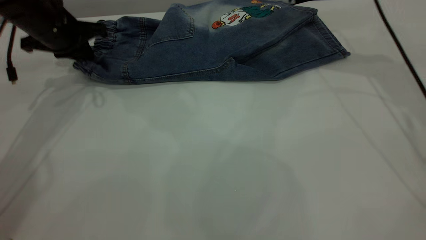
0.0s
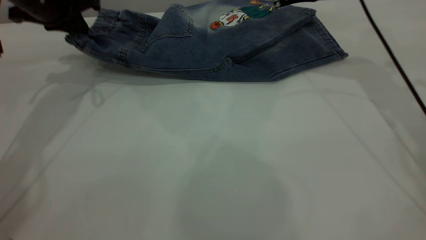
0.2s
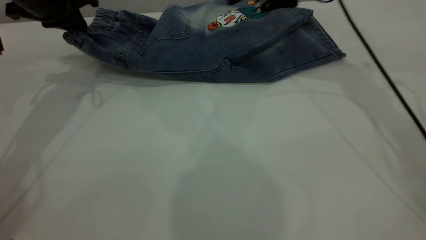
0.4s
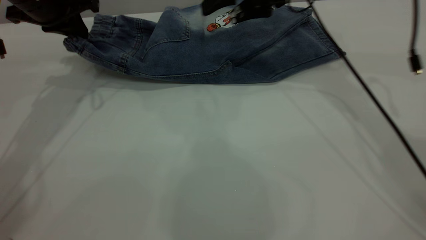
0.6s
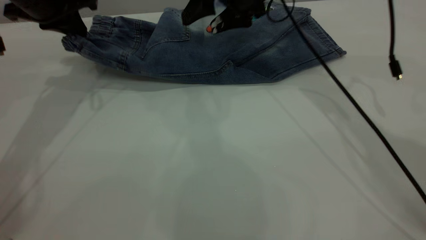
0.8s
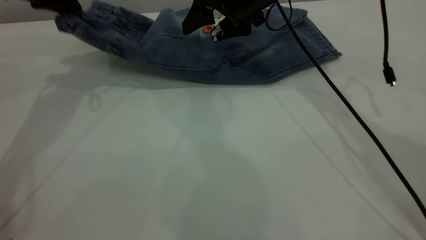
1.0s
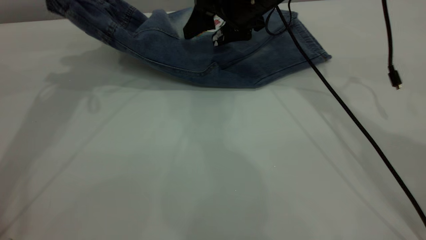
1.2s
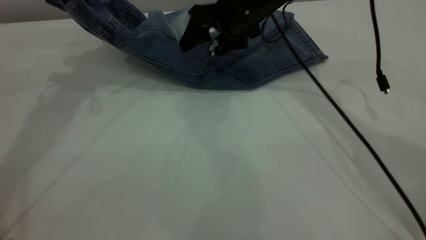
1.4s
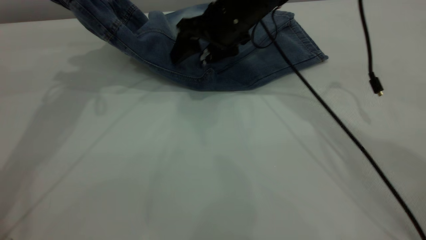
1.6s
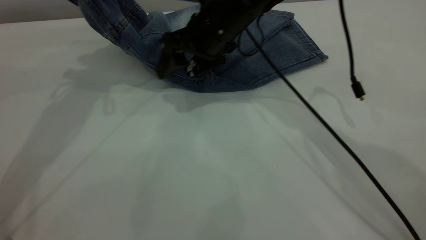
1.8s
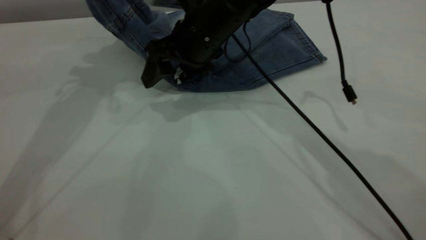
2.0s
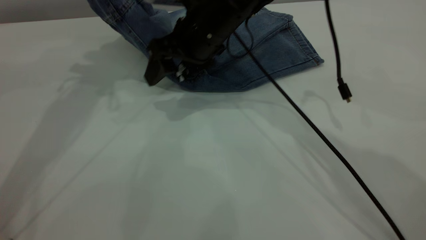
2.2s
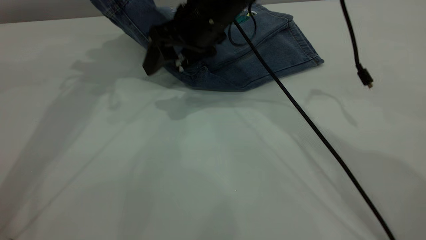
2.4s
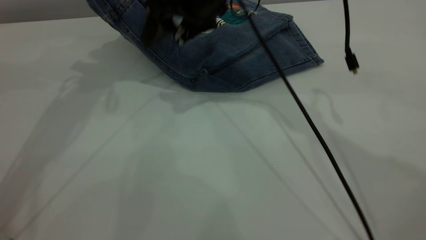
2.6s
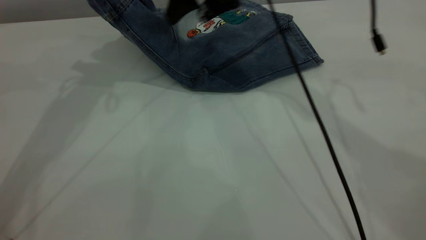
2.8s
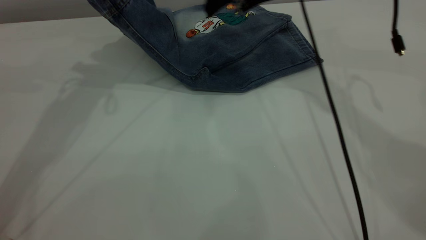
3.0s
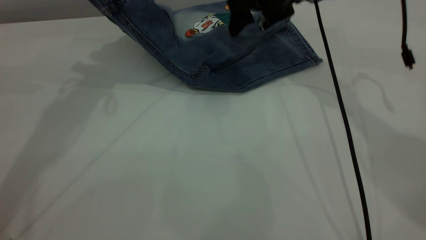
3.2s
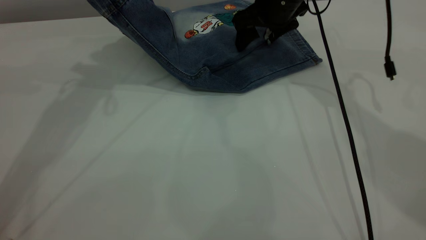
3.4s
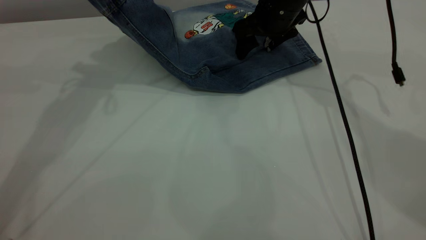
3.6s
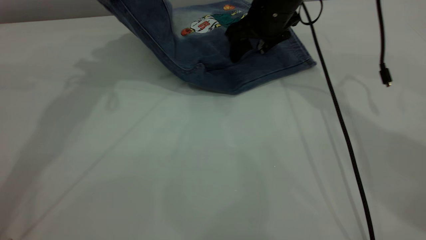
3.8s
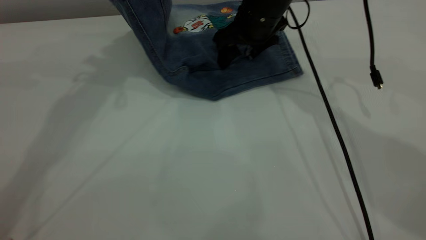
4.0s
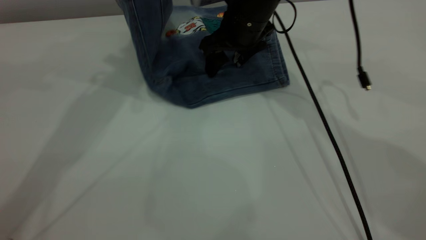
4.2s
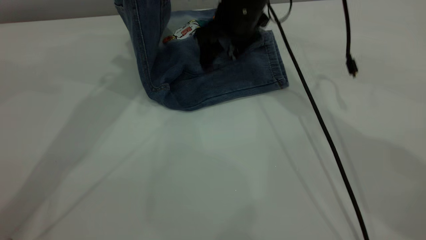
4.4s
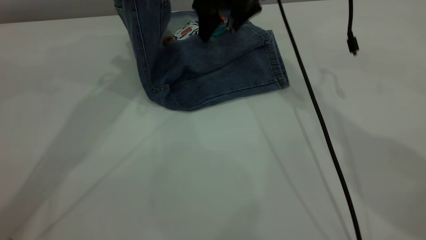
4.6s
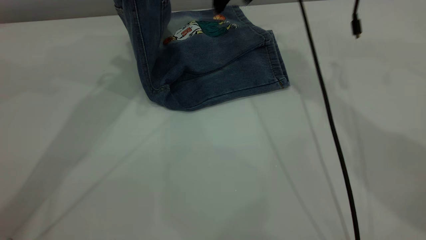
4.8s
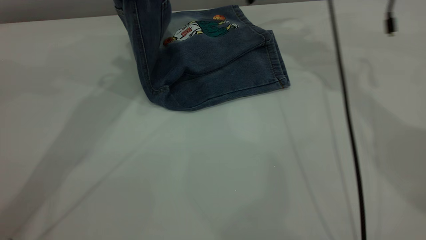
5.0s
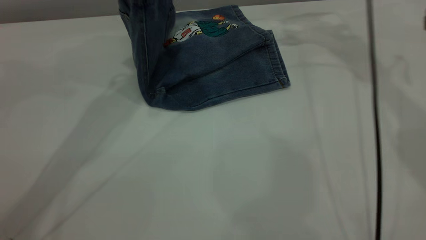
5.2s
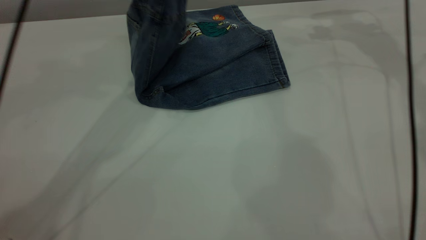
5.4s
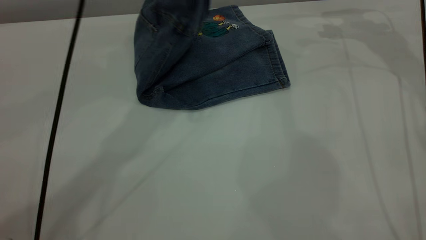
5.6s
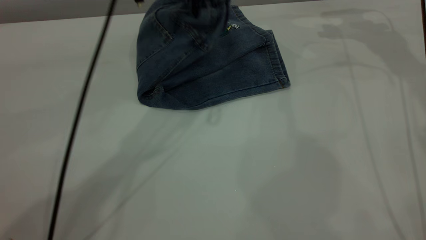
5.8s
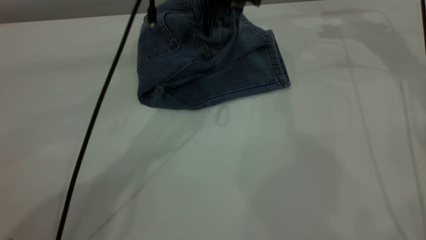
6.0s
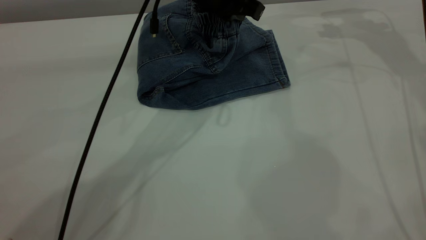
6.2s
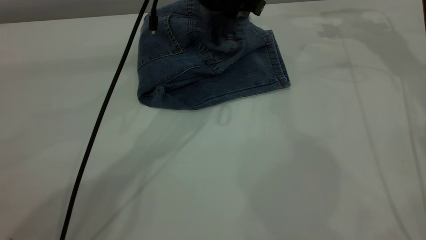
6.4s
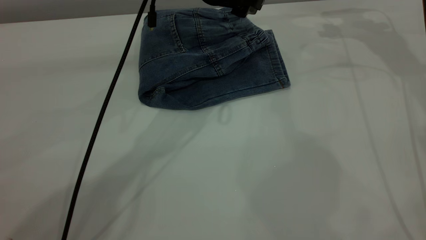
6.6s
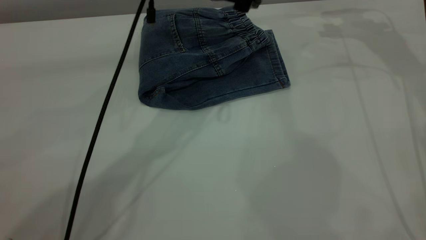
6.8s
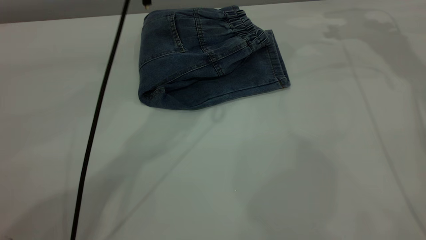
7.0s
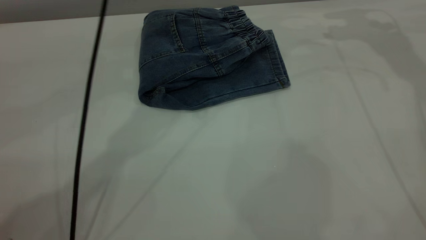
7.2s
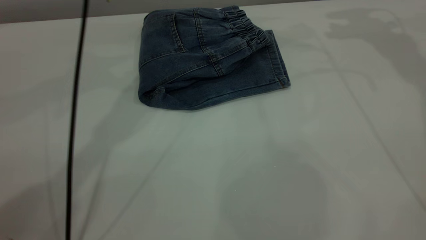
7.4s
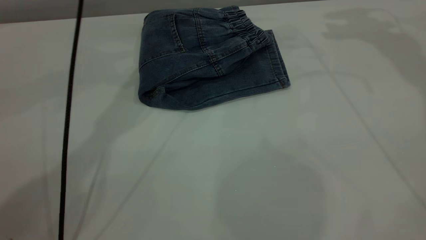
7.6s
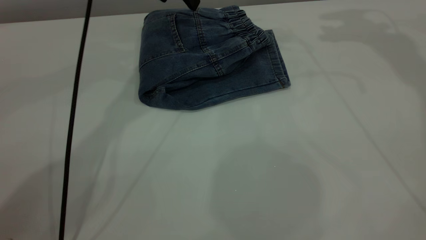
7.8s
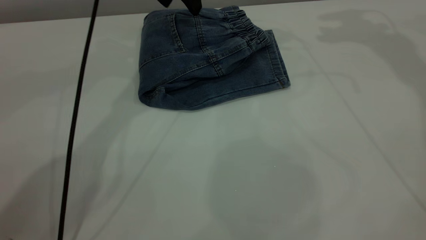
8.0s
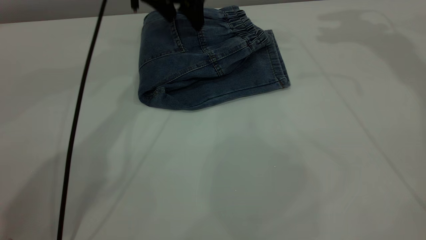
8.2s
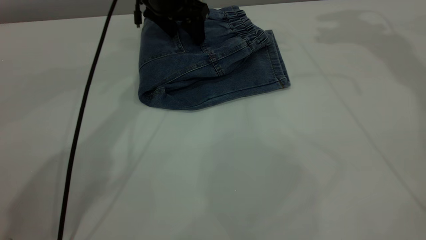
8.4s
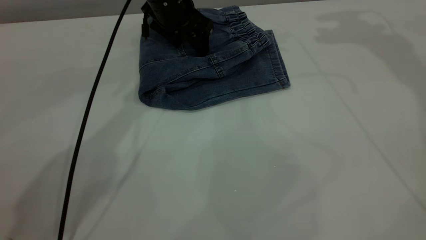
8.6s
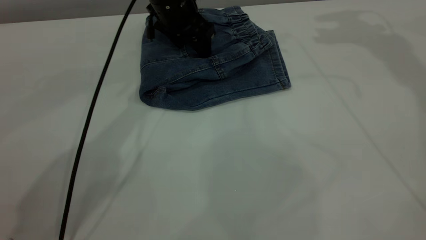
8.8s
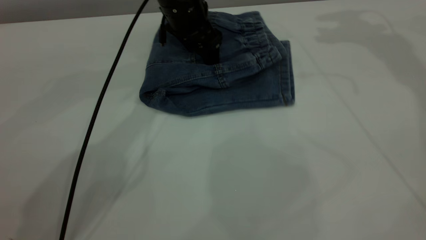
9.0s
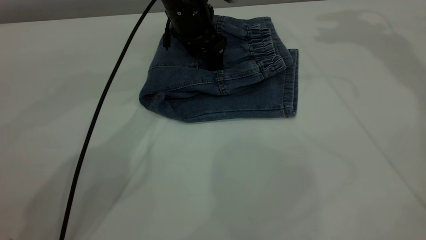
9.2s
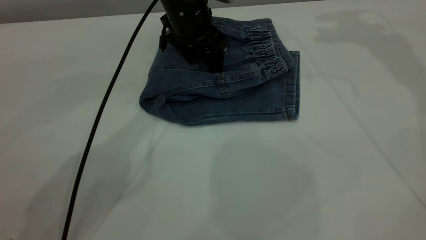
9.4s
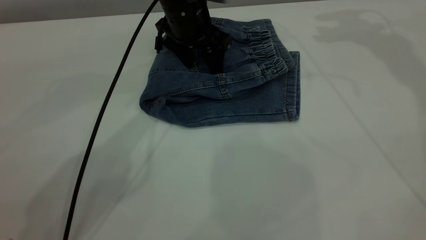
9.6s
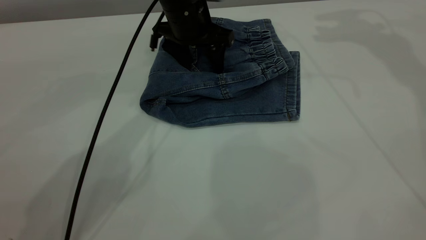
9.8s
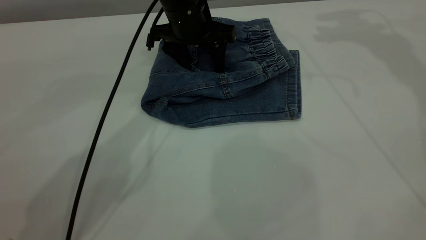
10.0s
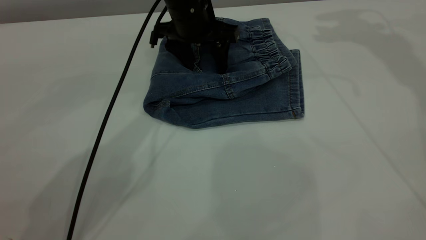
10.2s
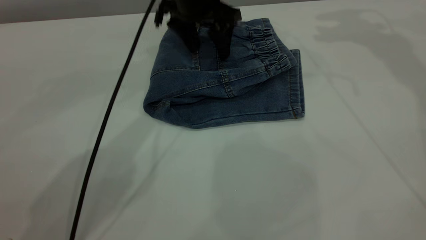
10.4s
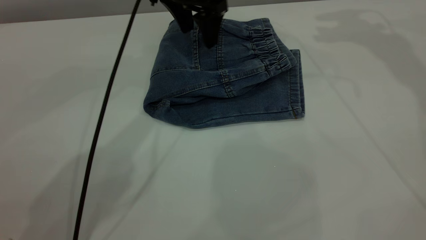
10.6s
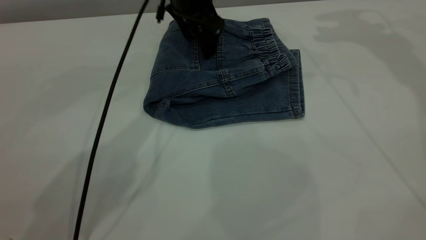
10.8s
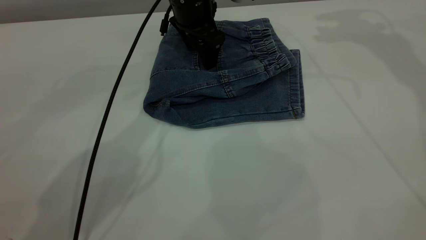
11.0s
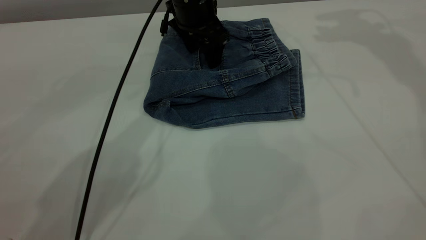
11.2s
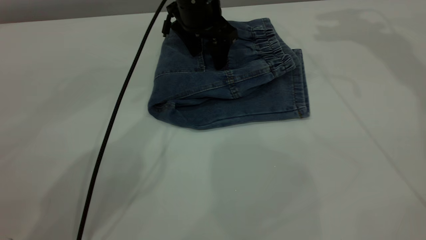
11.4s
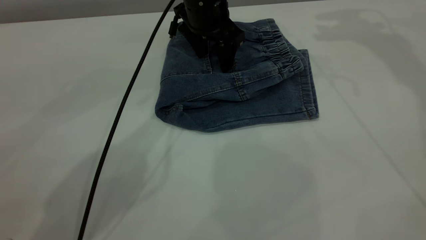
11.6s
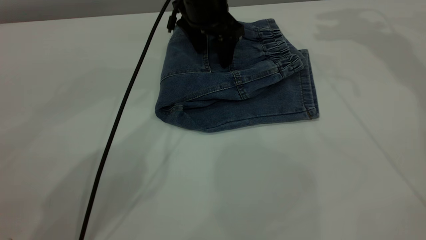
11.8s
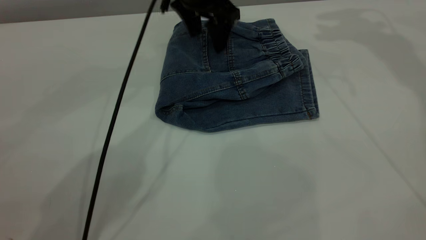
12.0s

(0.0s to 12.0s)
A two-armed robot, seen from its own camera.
Step, 0.0s - 6.8s: Fold the pants from left to right.
0.0s - 1.6s: The right gripper heads to the left, covering about 15 cm, while the left gripper moves upward, roughly 10 cm.
1.6s - 3.0s: The right gripper is displaced to the right and upward by some 10 cm.
3.0s - 4.4s: The right gripper changes place by approximately 5 cm. Meanwhile the left gripper moves to the right, some 5 cm.
4.4s - 6.0s: The left gripper moves downward and to the right, about 20 cm. The right gripper goes some 25 cm to the right.
6.0s - 7.6s: The right gripper is displaced upward by some 15 cm. The left gripper moves to the left and forward, about 10 cm, and opens up.
7.6s - 9.0s: The left gripper moves downward, approximately 10 cm.
9.0s - 10.4s: The left gripper goes about 5 cm upward.

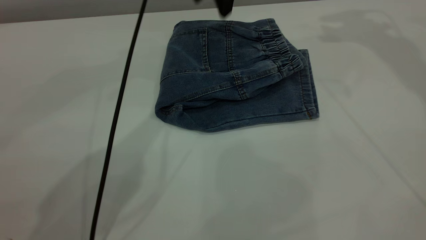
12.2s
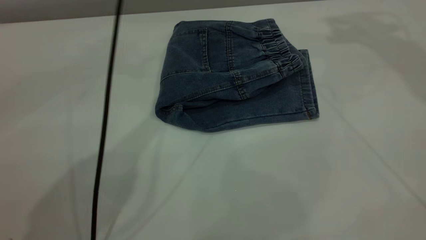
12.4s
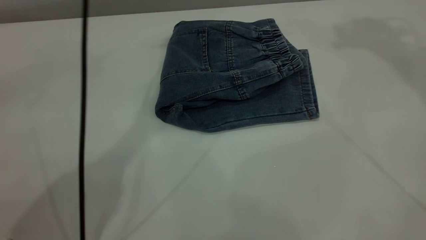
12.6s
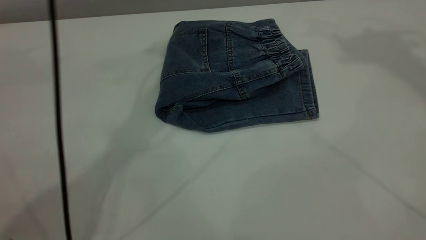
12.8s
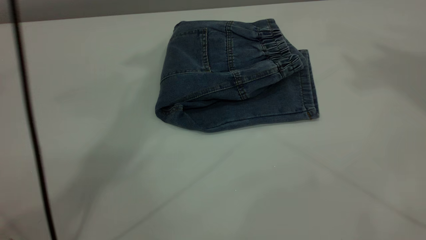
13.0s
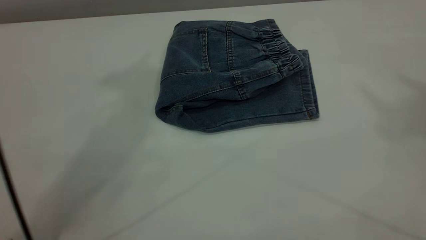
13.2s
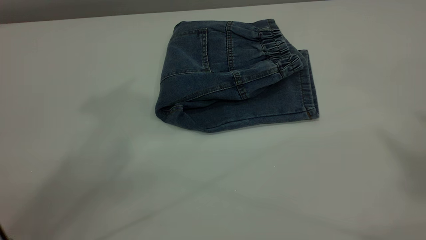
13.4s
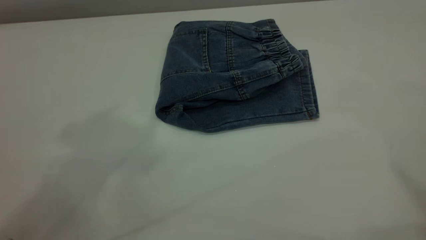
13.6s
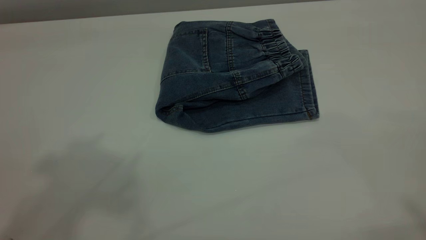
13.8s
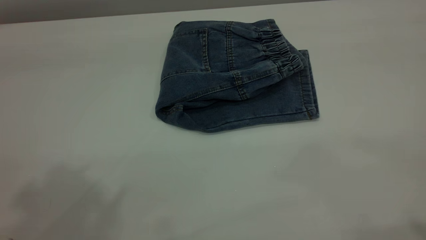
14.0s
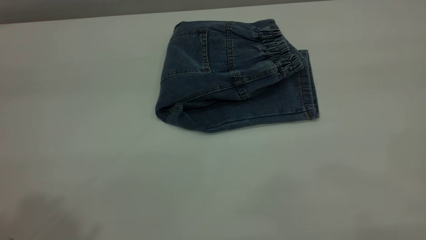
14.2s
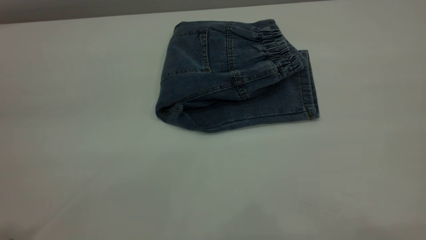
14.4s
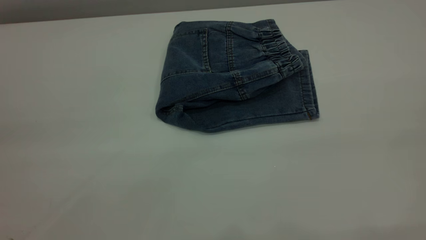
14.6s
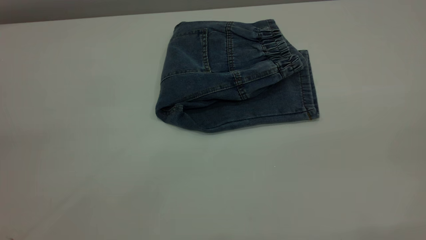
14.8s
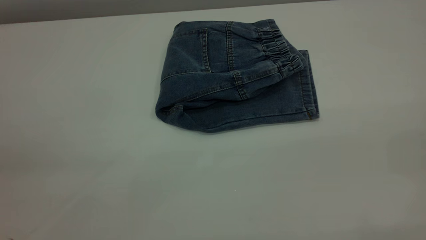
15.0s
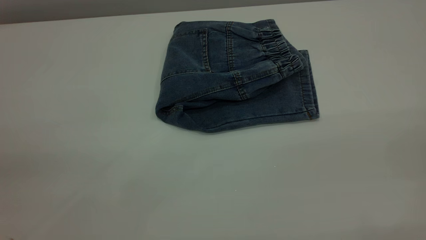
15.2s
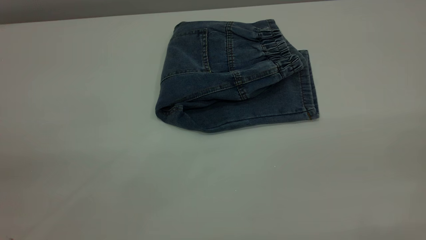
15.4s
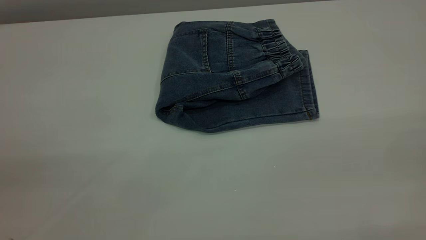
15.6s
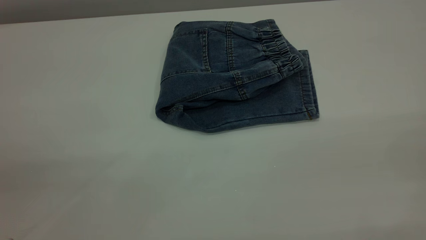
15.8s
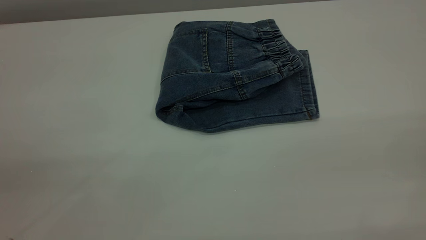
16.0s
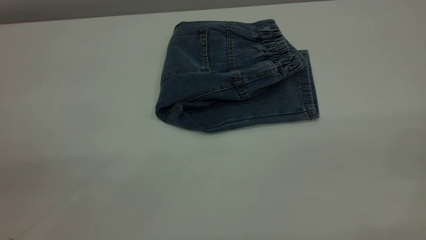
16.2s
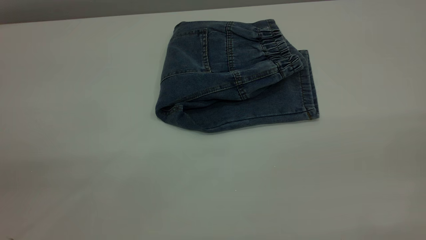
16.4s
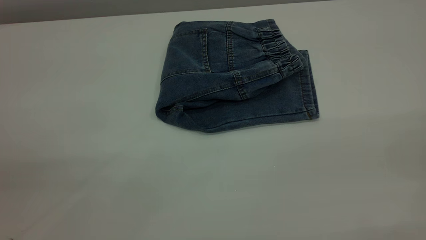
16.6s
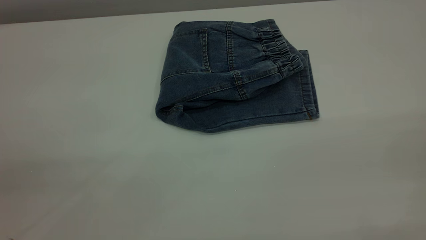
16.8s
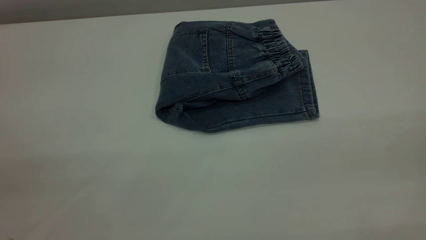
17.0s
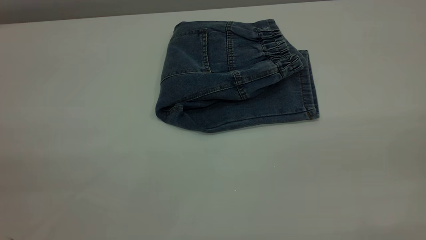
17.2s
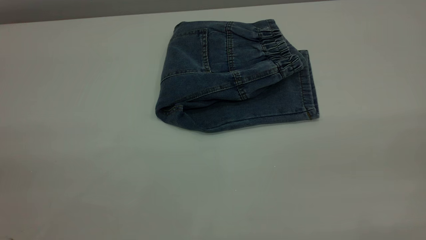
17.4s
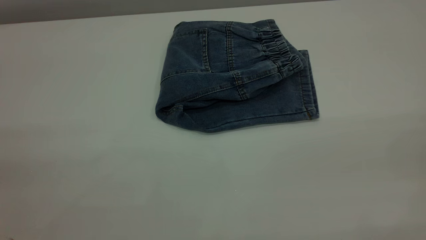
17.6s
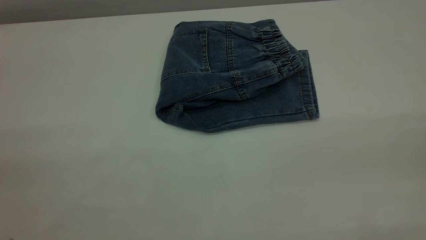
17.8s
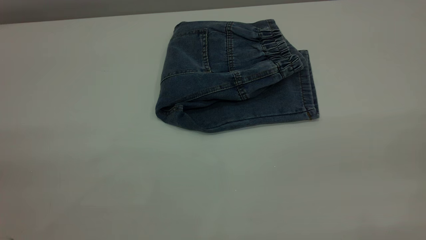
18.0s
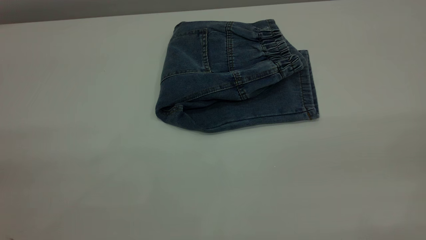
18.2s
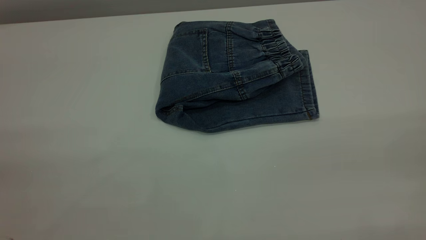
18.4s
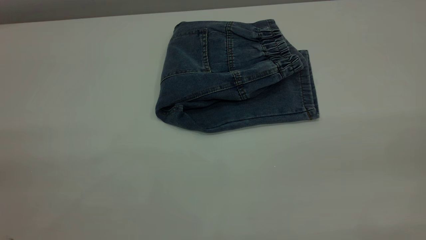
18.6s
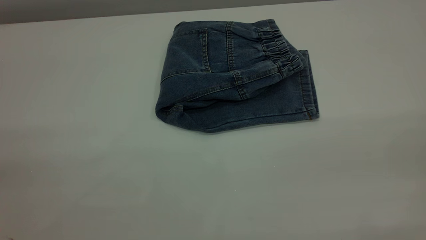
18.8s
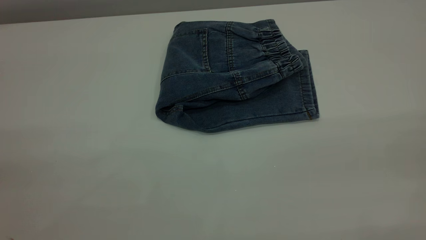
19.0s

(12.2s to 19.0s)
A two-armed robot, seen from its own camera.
12.2s - 13.6s: The left gripper travels upward, backward and to the left by about 40 cm.
17.6s - 19.0s: Both grippers stay about where they are.
